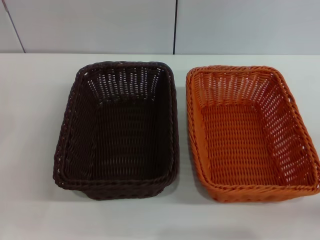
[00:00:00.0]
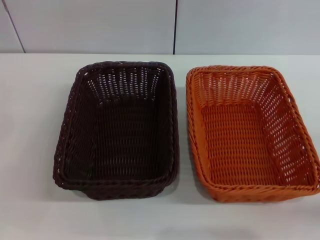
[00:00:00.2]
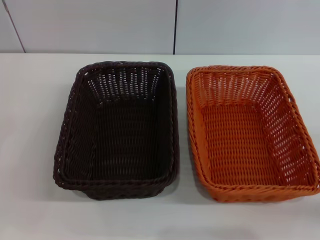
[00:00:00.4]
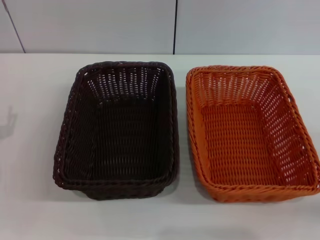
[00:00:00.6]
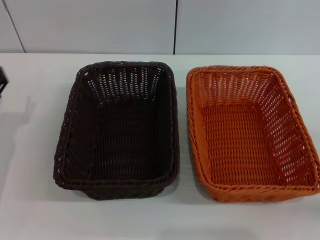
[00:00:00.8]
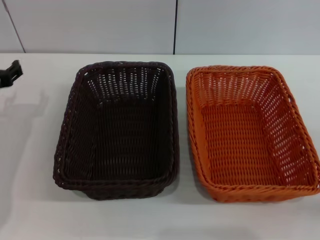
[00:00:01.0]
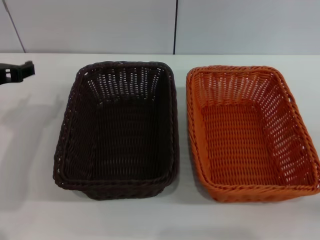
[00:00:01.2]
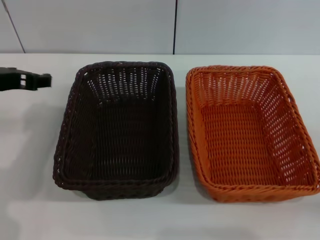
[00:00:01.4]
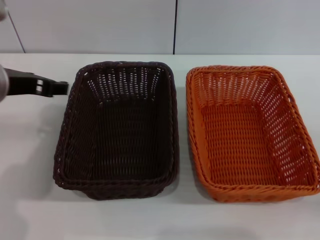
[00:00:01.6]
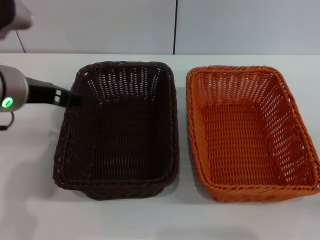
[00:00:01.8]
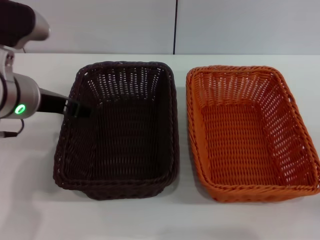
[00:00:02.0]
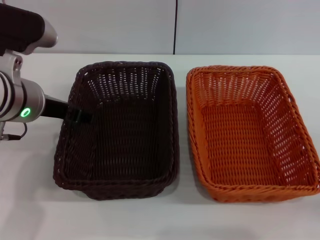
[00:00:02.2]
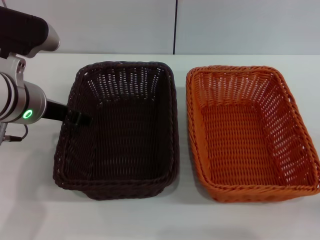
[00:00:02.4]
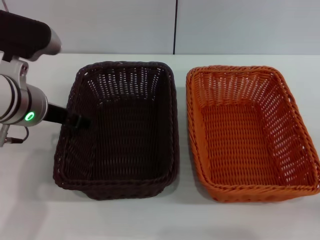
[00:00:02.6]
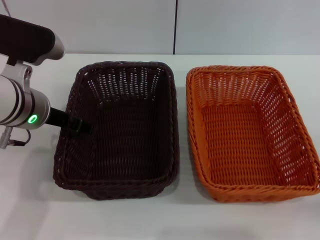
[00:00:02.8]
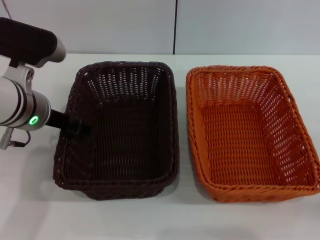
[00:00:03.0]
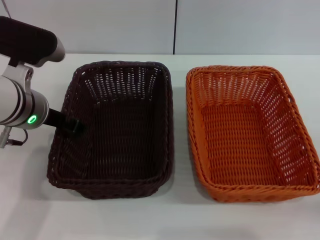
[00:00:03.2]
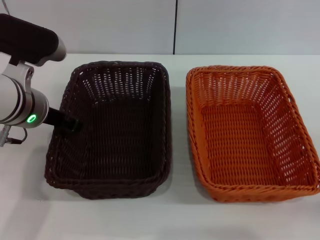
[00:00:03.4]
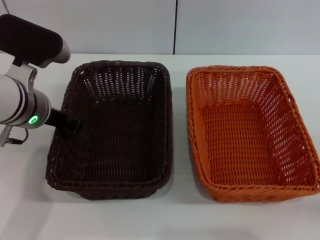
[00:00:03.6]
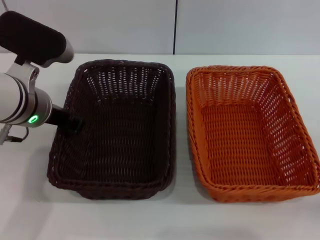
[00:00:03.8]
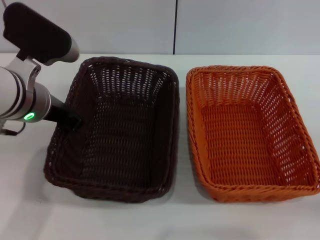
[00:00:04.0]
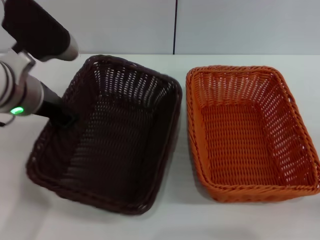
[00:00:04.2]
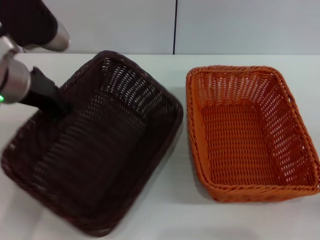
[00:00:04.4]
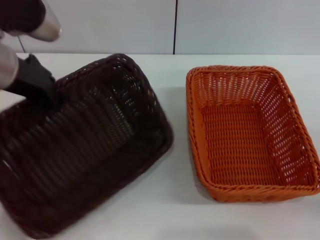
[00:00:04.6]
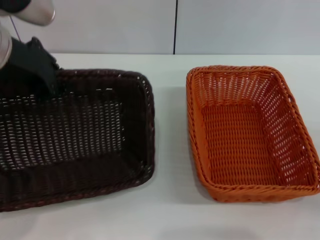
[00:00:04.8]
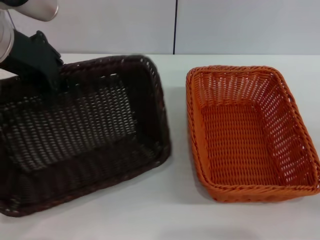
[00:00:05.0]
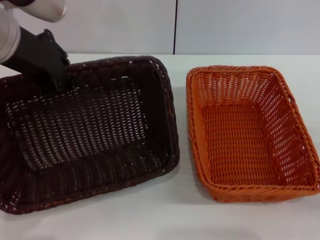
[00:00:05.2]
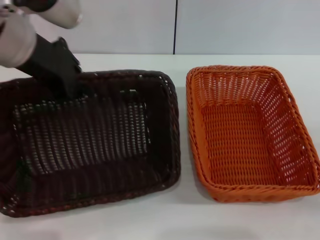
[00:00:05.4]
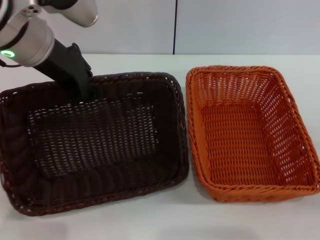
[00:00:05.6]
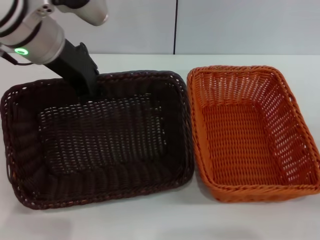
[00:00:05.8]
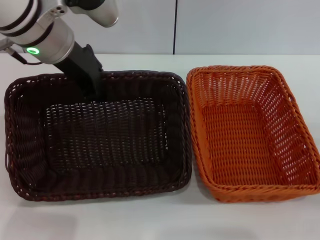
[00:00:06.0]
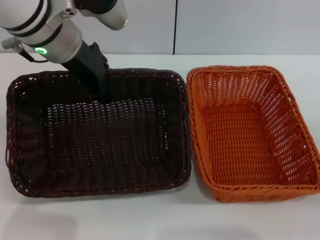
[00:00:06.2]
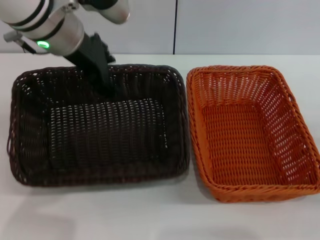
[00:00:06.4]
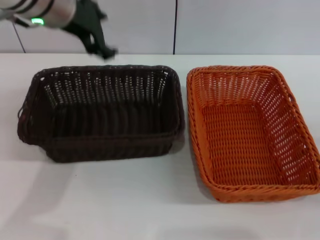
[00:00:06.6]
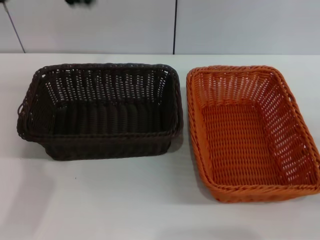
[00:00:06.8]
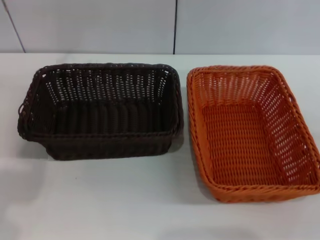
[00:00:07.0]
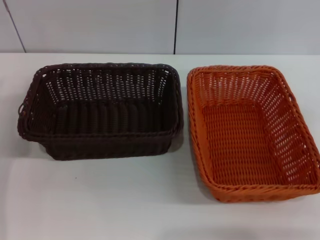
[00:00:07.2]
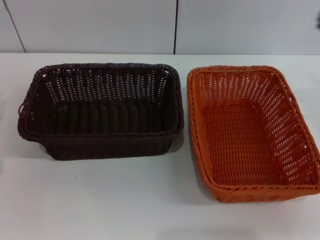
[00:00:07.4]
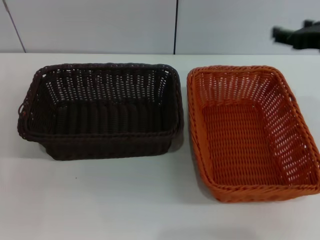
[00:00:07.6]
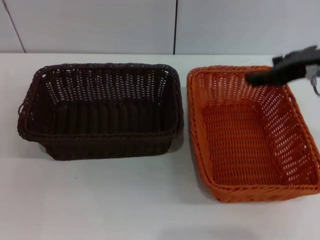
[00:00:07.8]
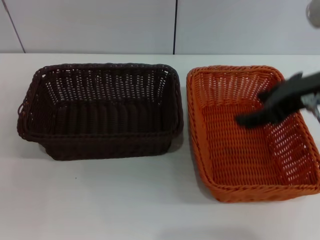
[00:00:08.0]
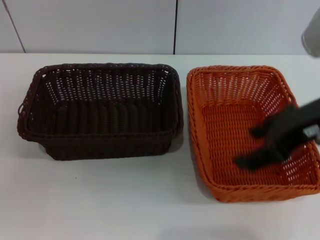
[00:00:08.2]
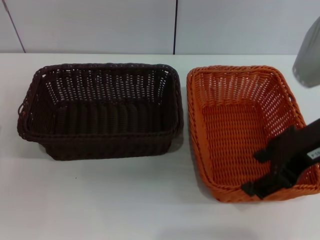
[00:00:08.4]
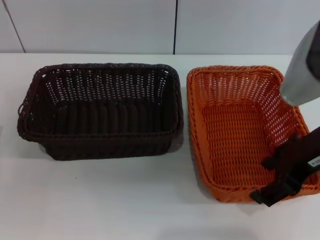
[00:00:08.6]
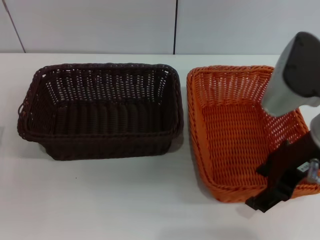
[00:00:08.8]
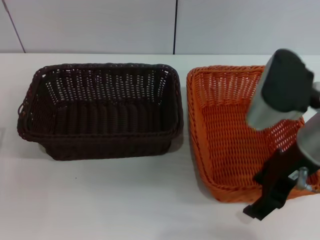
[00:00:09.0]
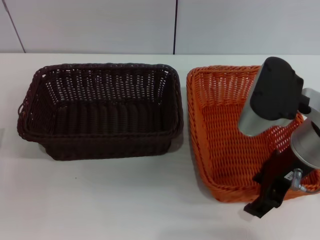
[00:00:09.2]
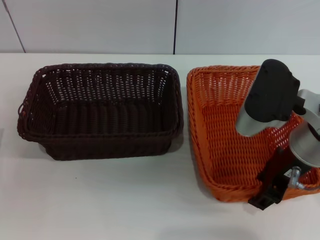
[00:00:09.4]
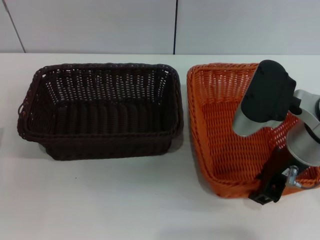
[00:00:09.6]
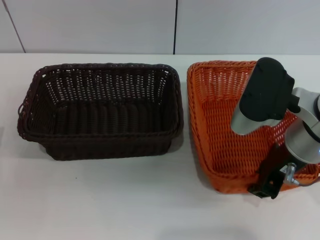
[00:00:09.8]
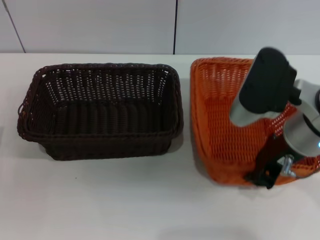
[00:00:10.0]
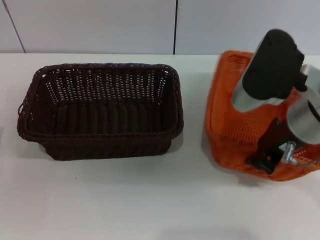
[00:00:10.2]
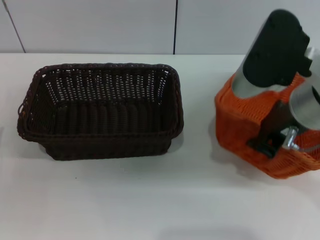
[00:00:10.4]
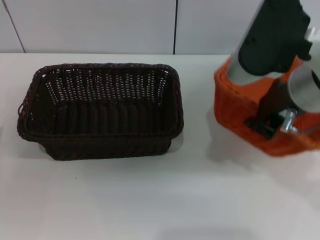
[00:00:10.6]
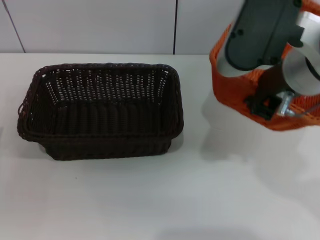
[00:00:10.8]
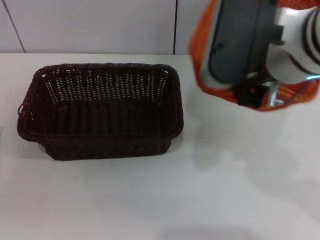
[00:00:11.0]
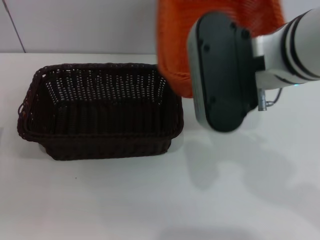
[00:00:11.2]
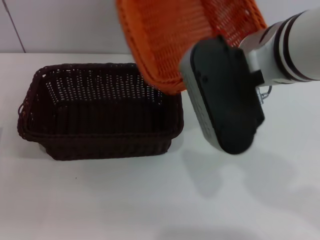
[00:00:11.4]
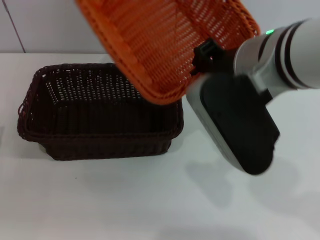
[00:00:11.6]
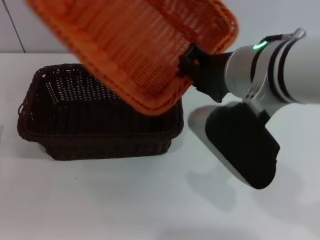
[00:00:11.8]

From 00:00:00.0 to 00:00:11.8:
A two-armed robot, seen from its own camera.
Step, from 00:00:00.0 to 00:00:04.4: Pick up the dark basket with the left gripper.
Step, from 00:00:04.6 to 00:00:06.4: Place the dark basket in the center of view with the left gripper.
Step, from 00:00:06.8 to 00:00:10.4: Pick up the light basket with the right gripper.
From 00:00:00.0 to 00:00:01.4: The left gripper is displaced upward, to the right and forward by about 20 cm.
From 00:00:01.4 to 00:00:03.0: The left gripper moves to the right, approximately 5 cm.
From 00:00:03.0 to 00:00:04.4: The left gripper is displaced upward by roughly 5 cm, and closes.
From 00:00:04.4 to 00:00:06.0: The left gripper shifts roughly 5 cm forward.
From 00:00:06.0 to 00:00:07.4: The left gripper is displaced to the left, downward and backward by roughly 25 cm, and opens its fingers. The right gripper heads upward and forward, covering roughly 15 cm.
From 00:00:07.4 to 00:00:08.8: The left gripper goes roughly 10 cm downward. Meanwhile the right gripper is displaced to the left and backward by approximately 15 cm.
From 00:00:08.8 to 00:00:10.4: The right gripper closes.
From 00:00:10.4 to 00:00:11.8: The right gripper heads to the left, covering approximately 5 cm.

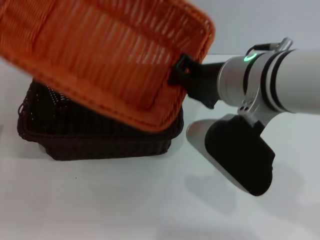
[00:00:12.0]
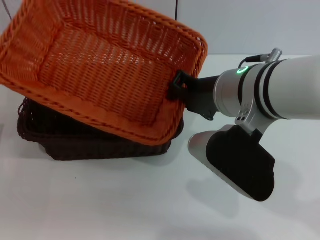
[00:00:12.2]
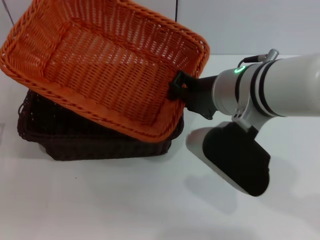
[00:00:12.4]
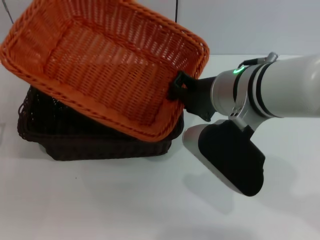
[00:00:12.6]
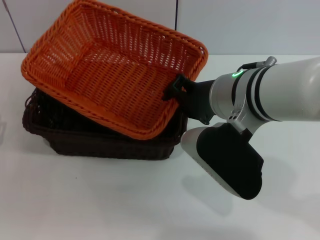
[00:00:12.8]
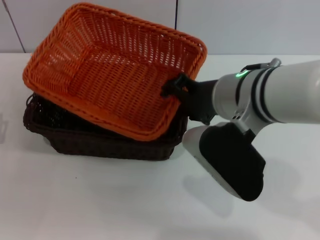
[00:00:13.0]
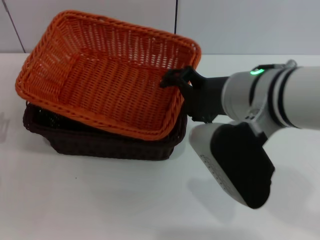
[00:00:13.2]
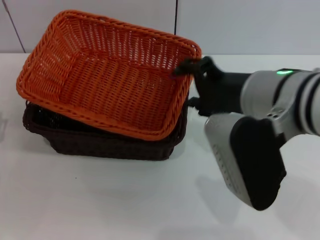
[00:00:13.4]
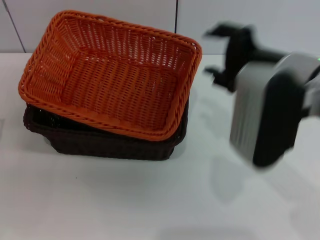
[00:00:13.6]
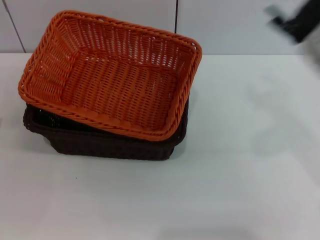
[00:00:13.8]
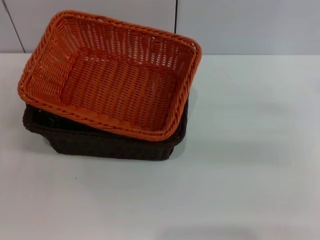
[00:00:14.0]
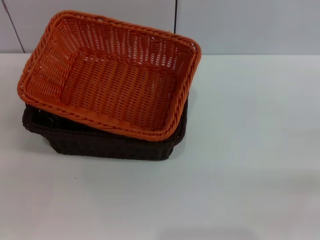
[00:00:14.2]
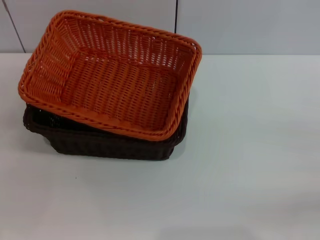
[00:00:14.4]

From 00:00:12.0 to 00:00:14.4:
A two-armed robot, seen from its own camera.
From 00:00:12.0 to 00:00:13.2: The right gripper opens.
From 00:00:13.2 to 00:00:14.4: The right gripper is displaced to the right and downward by about 30 cm.
